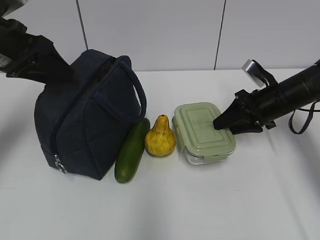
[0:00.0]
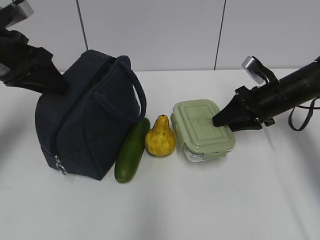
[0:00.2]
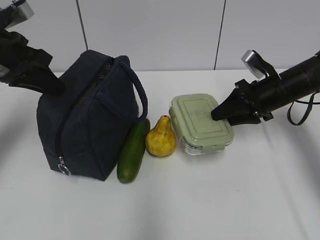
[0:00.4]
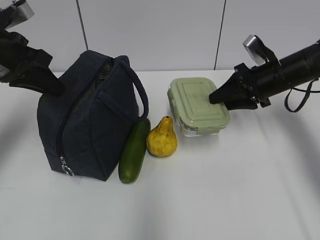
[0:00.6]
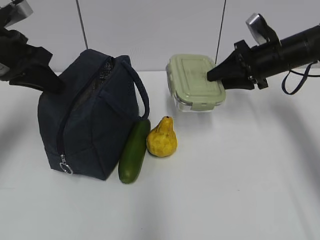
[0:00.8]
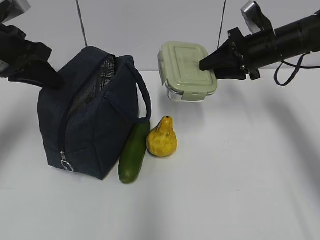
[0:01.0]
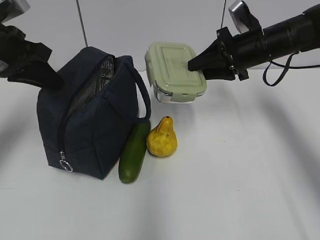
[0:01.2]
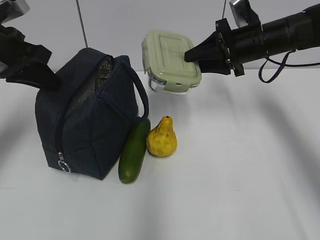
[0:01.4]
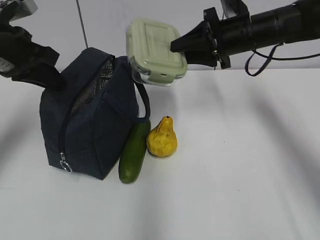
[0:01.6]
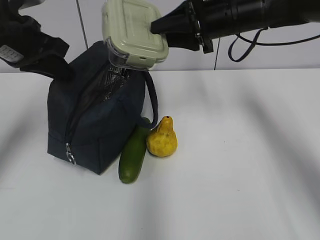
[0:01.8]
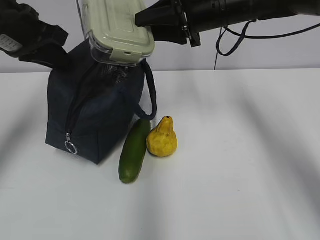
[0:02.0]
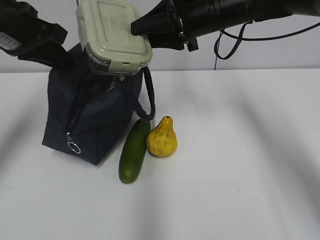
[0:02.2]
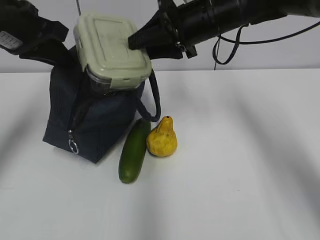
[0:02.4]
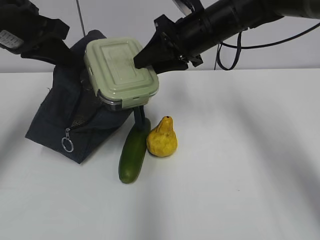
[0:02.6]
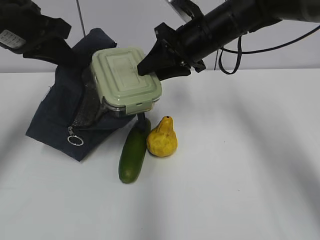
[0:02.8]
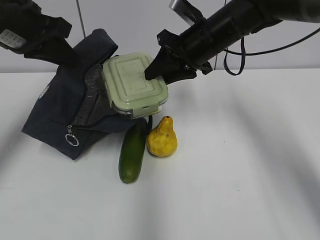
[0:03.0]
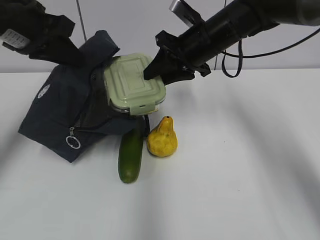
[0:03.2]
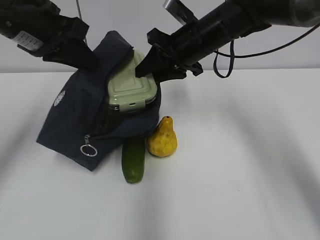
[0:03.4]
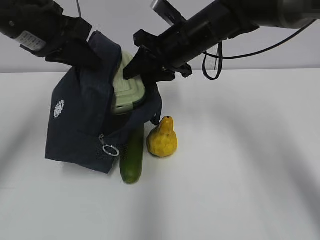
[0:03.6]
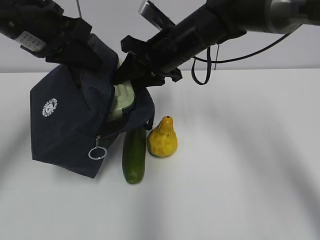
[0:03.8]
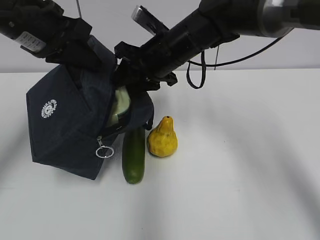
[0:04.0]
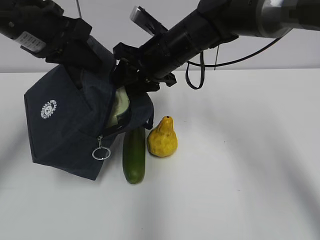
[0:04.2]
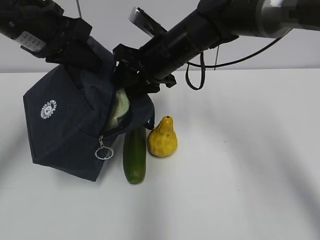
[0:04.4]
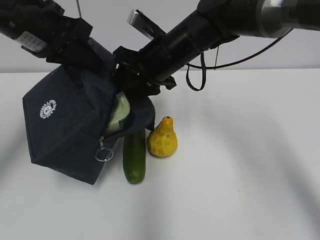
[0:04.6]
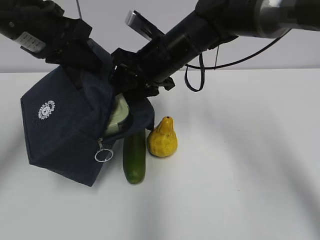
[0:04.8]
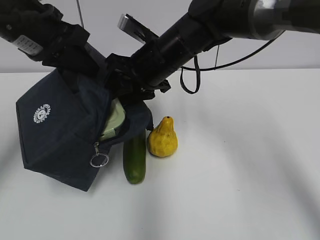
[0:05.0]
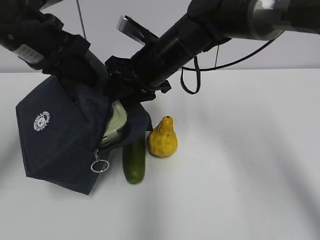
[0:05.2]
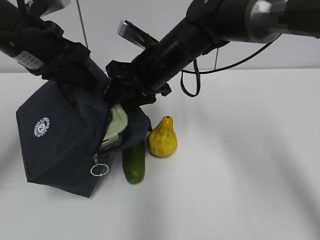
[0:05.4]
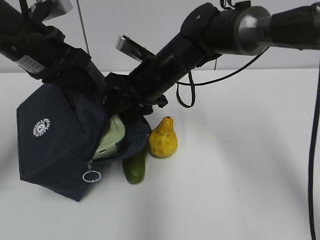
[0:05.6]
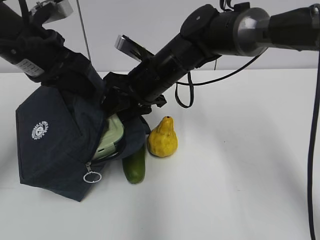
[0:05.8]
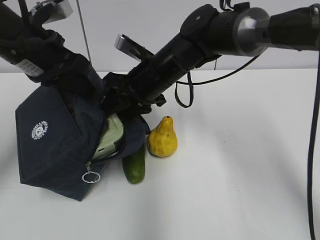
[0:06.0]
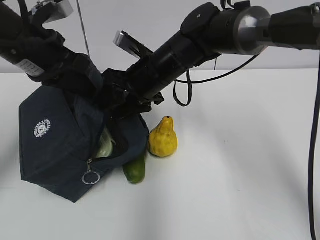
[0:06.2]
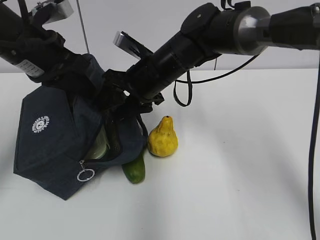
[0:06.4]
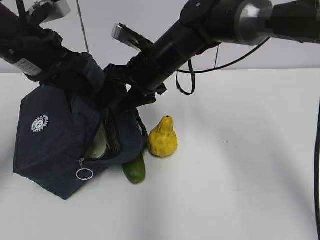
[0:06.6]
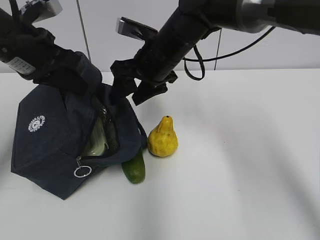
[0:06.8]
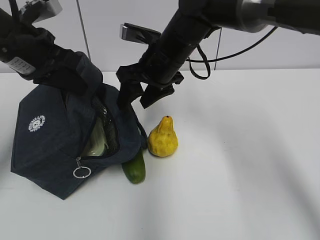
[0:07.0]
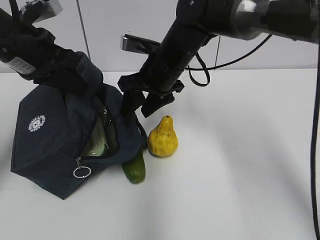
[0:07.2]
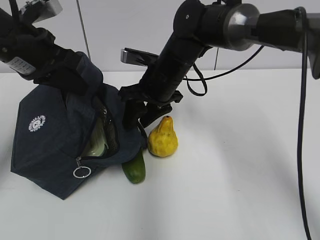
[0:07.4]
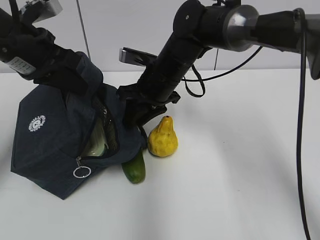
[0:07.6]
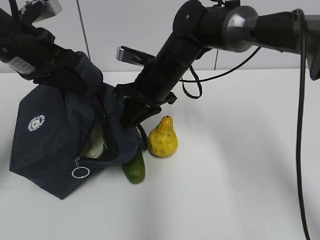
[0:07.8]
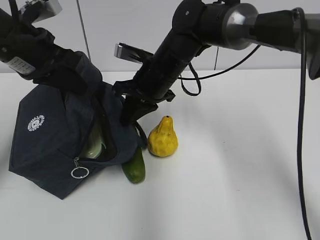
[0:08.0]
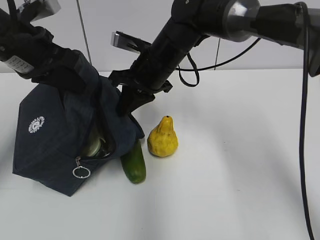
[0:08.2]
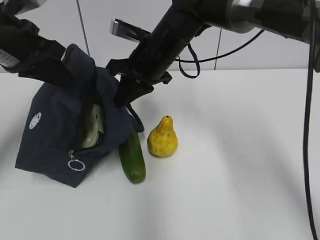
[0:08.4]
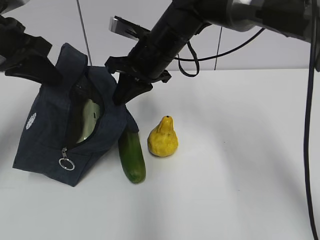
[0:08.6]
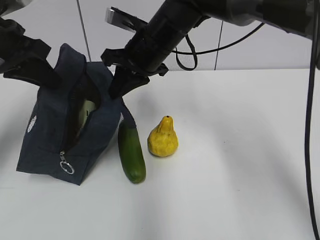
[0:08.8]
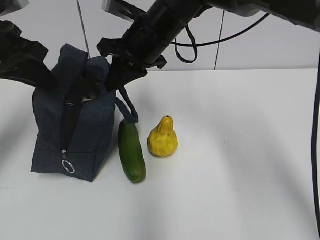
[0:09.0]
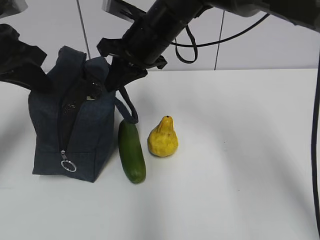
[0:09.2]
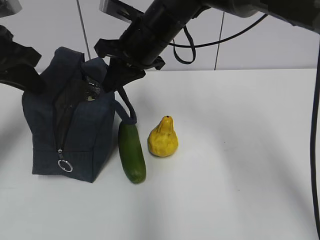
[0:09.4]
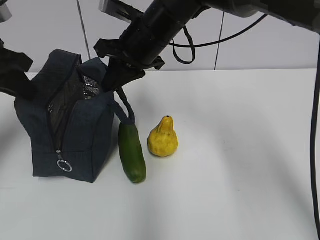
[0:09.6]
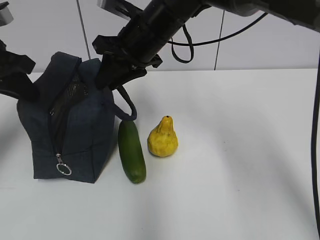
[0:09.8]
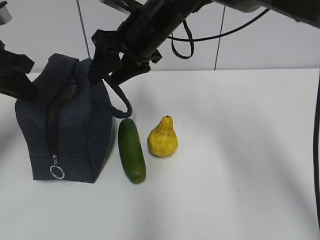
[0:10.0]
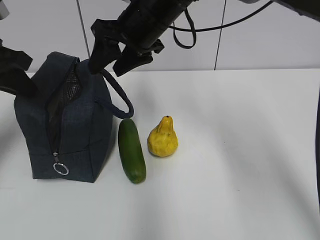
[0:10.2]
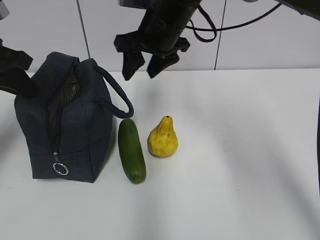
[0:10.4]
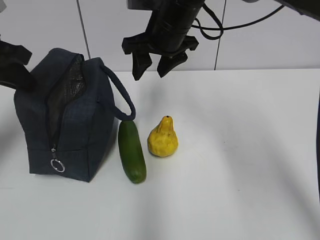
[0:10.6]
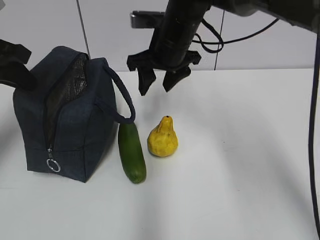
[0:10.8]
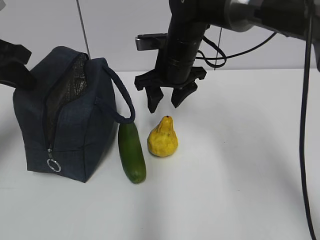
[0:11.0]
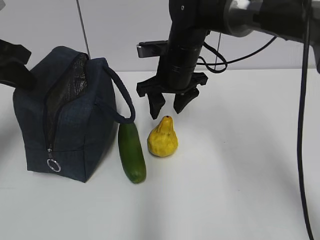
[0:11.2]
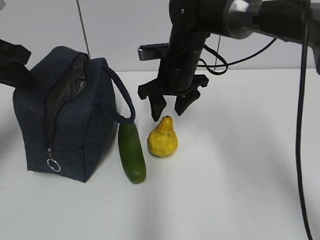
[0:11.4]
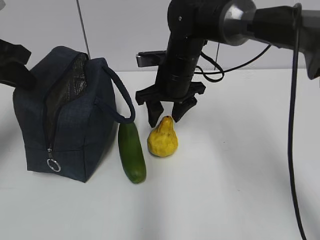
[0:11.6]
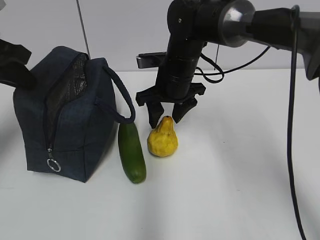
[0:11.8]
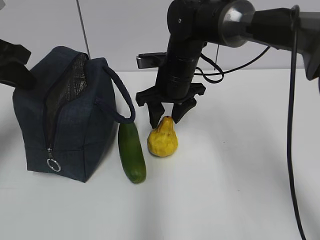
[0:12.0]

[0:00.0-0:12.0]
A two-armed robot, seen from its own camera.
Step, 0:00.0 to 0:02.2: Grab the lunch bag with your left hand.
Step, 0:02.6 to 0:06.2: Place it into the bag with your right hand.
0:00.0 to 0:01.6: The right gripper heads upward and to the left, covering approximately 10 cm, while the left gripper closes its fingers.
0:01.6 to 0:03.0: The right gripper travels to the left by approximately 5 cm.
0:03.0 to 0:04.4: The right gripper moves to the left, some 5 cm.
0:06.0 to 0:07.6: The grippers move only a little.
0:07.6 to 0:09.0: The right gripper goes some 10 cm upward, and closes up.
0:09.0 to 0:10.4: The right gripper opens.
0:10.4 to 0:12.0: The right gripper goes about 10 cm downward.

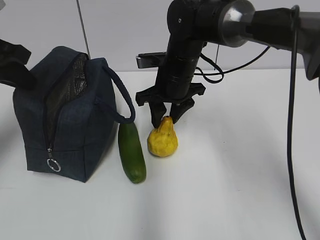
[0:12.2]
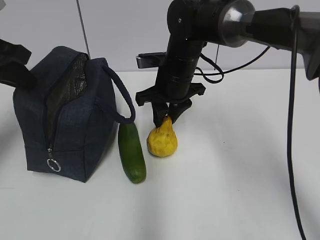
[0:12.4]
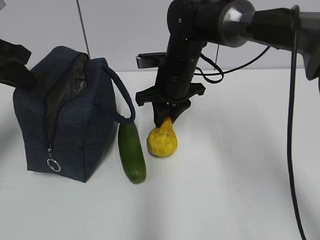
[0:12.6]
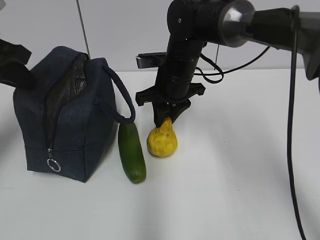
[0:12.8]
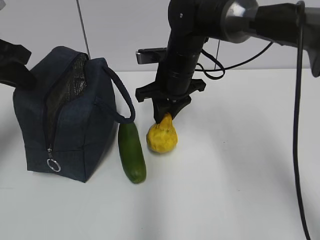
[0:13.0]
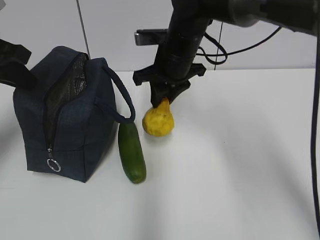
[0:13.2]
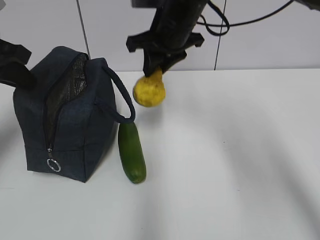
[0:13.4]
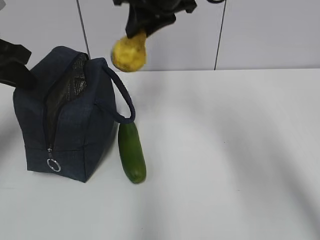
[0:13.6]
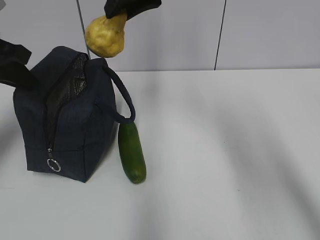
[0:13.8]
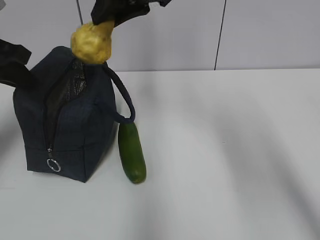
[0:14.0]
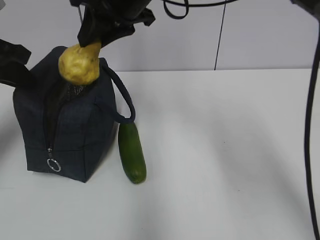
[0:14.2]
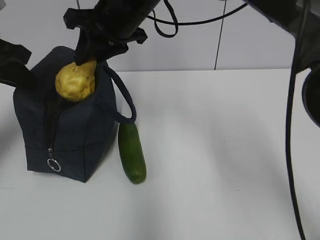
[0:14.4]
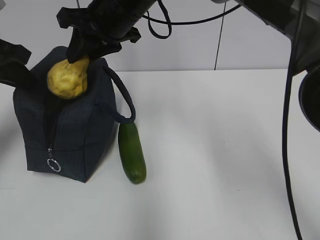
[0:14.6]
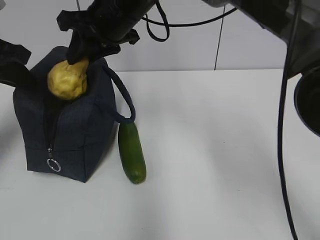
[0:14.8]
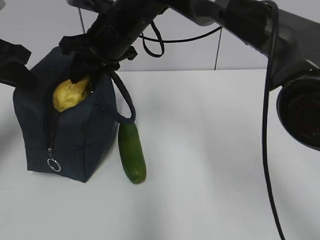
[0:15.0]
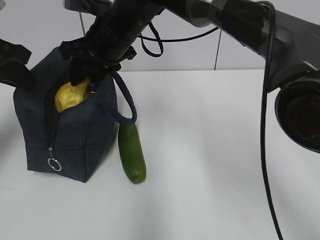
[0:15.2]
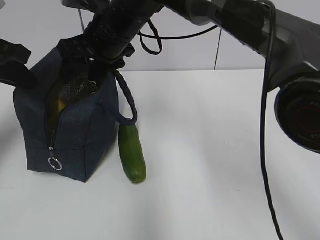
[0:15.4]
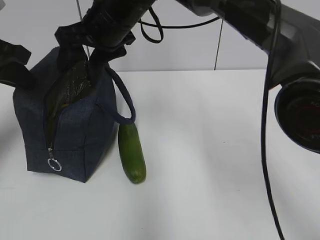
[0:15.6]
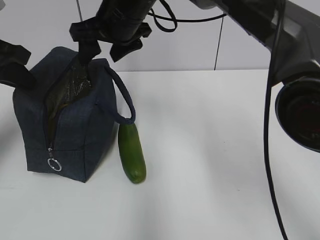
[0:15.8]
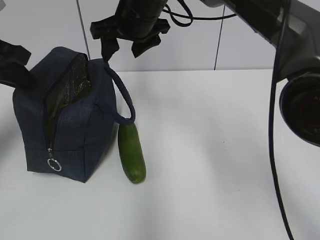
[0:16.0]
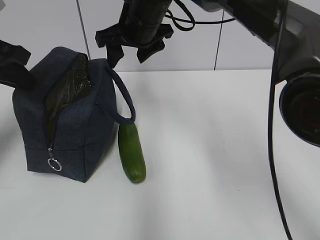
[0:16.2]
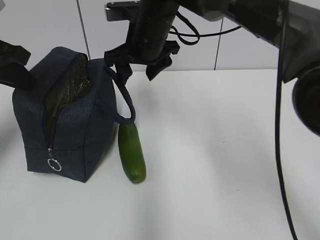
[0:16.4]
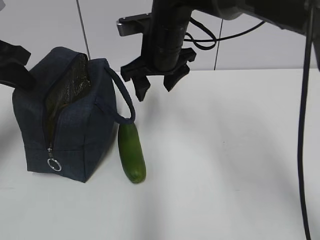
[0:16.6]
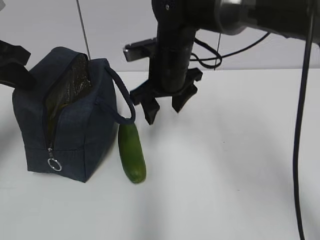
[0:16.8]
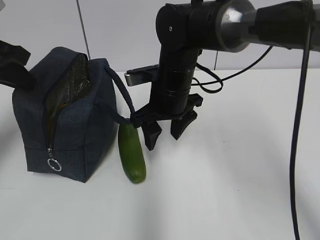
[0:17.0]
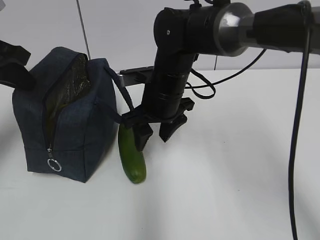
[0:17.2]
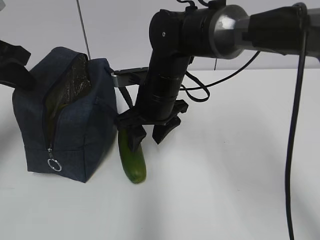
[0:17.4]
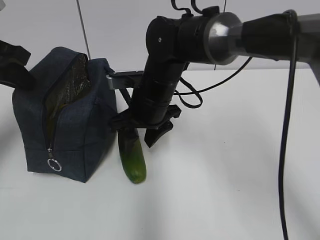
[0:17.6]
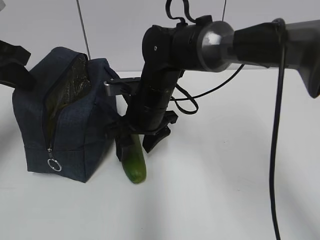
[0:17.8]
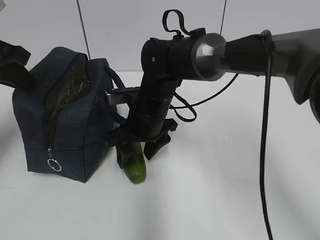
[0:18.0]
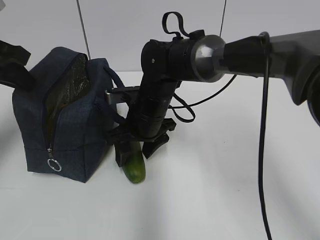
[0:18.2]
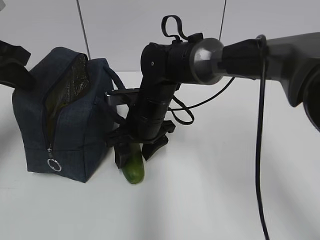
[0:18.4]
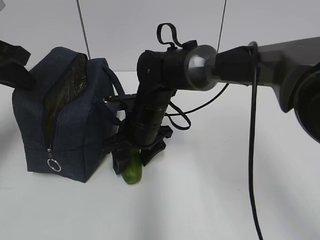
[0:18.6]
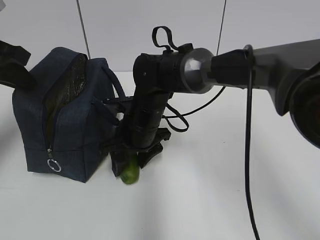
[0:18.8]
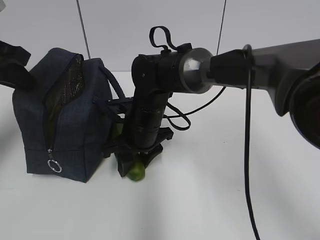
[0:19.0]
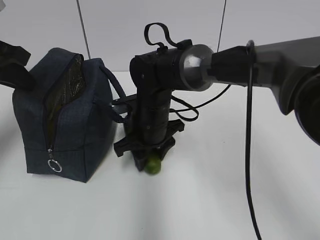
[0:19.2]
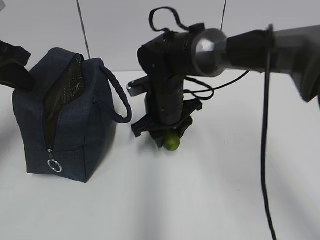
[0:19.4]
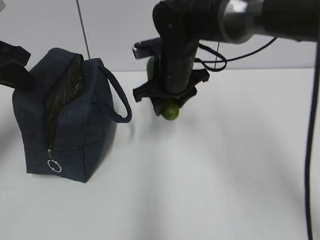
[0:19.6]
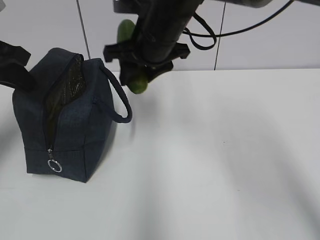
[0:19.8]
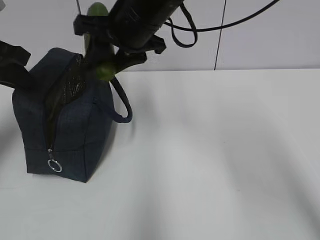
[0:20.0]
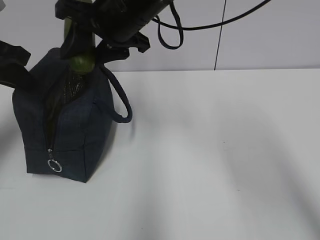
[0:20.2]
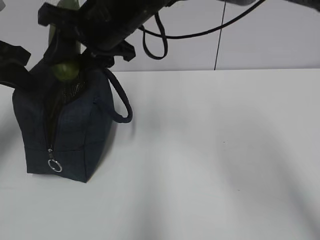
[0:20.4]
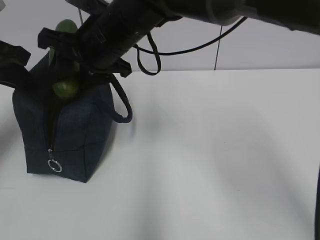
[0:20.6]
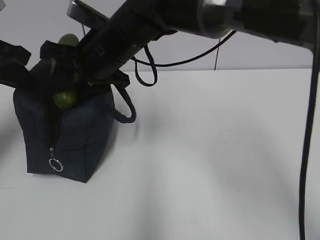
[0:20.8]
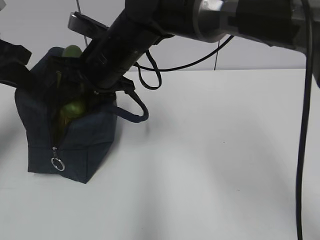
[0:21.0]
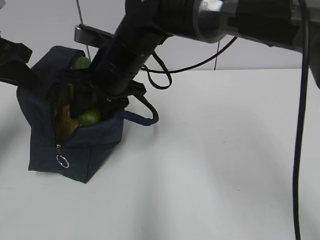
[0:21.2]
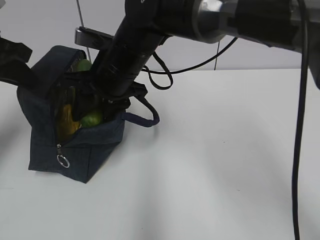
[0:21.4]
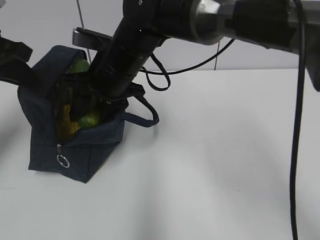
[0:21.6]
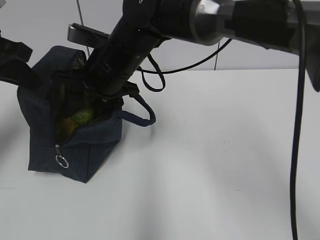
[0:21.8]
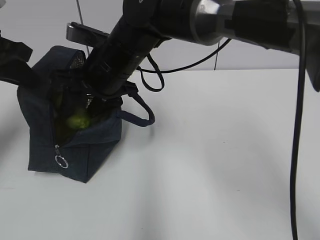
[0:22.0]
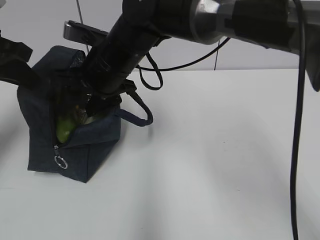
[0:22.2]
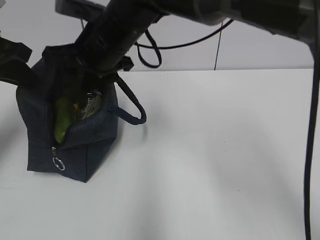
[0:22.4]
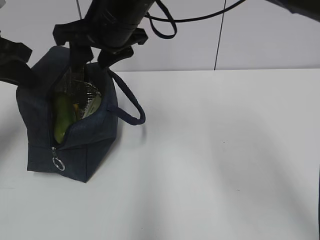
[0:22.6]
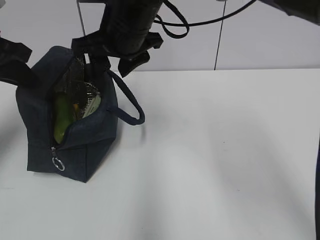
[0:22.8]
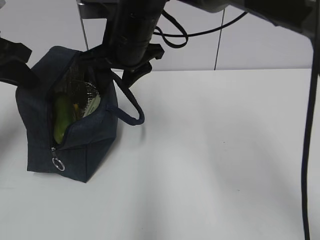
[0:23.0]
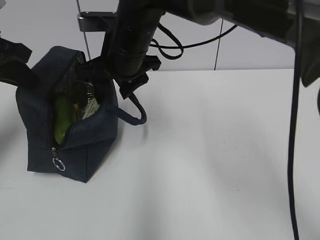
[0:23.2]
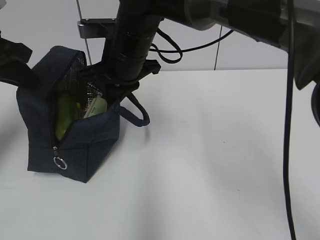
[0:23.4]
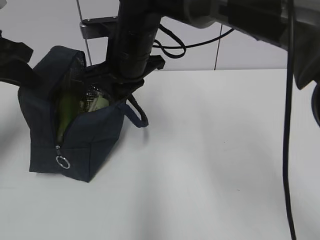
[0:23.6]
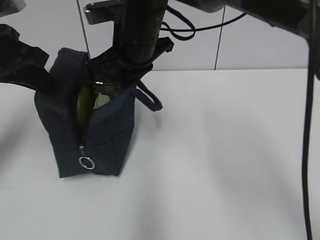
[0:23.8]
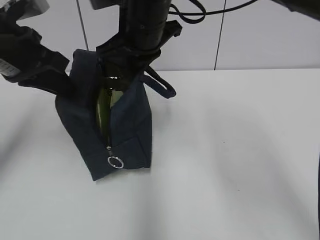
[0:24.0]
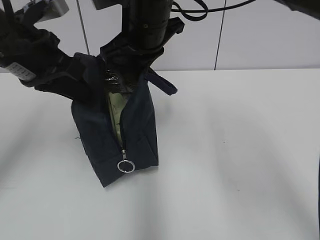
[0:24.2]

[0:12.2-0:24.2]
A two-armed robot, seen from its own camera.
Step, 0:12.6 to 0:15.2: Place it into the bag with your right hand.
Step, 0:15.6 to 0:18.8: Grab the cucumber with your right hand.
Step, 0:22.2 to 0:23.4: Grab the lunch bag with your right hand.
0:12.2 to 0:13.8: The right gripper is displaced upward by approximately 20 cm.
0:13.8 to 0:15.2: The right gripper is displaced downward and to the left by some 15 cm.
0:15.2 to 0:16.6: The right gripper goes about 5 cm to the right, and opens.
0:16.6 to 0:18.2: The right gripper travels downward by about 10 cm.
0:18.2 to 0:19.8: The right gripper moves upward, about 15 cm.
0:19.8 to 0:21.2: The right gripper goes approximately 5 cm to the left.
0:21.2 to 0:22.6: The right gripper is displaced upward by approximately 5 cm.
0:22.6 to 0:24.2: The right gripper closes; the left gripper is displaced to the right by about 10 cm.
